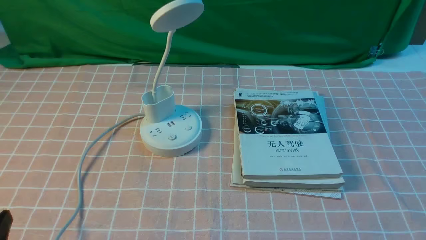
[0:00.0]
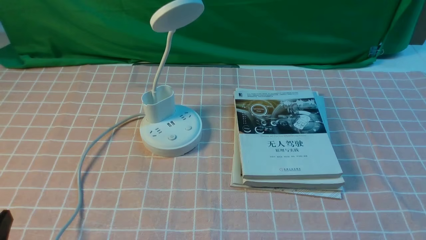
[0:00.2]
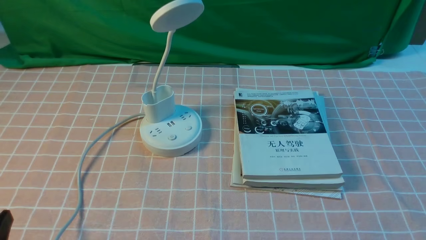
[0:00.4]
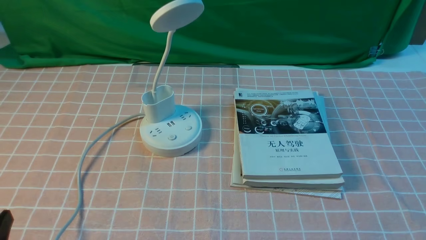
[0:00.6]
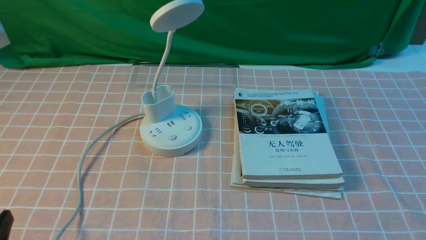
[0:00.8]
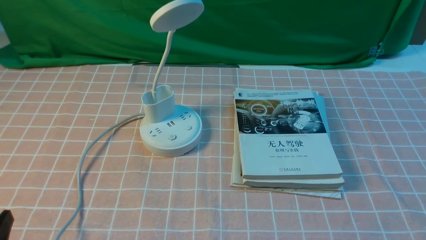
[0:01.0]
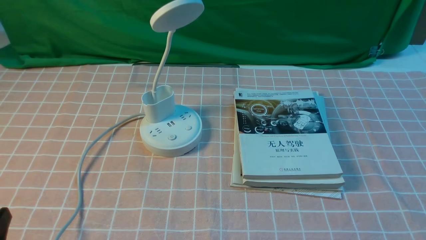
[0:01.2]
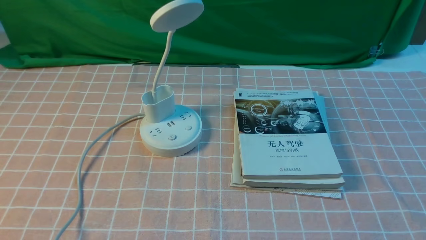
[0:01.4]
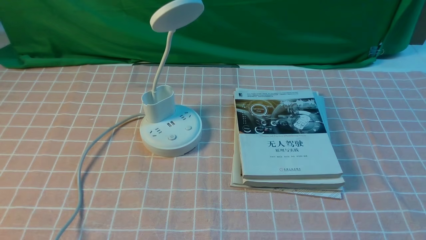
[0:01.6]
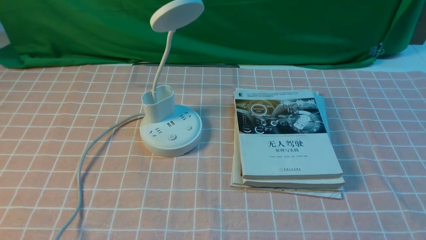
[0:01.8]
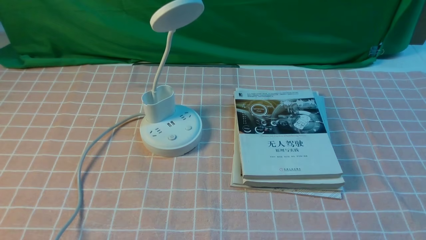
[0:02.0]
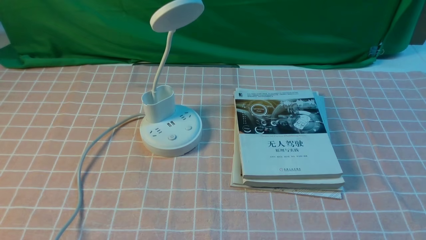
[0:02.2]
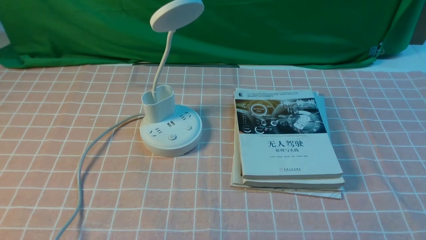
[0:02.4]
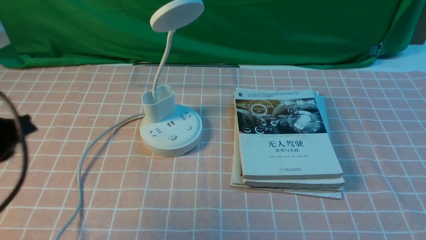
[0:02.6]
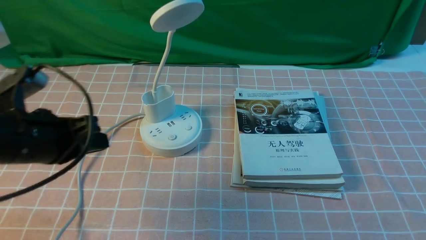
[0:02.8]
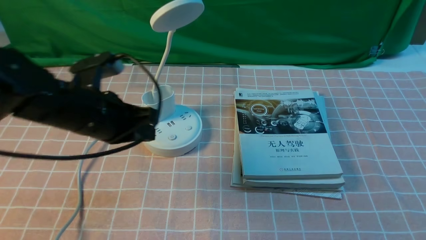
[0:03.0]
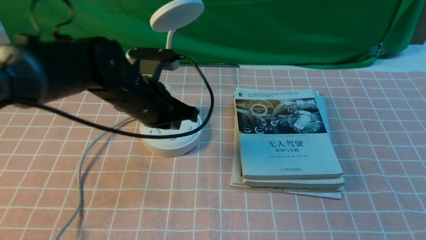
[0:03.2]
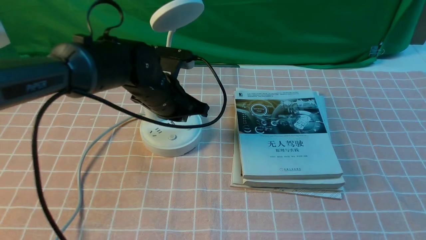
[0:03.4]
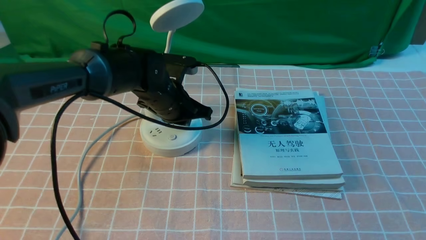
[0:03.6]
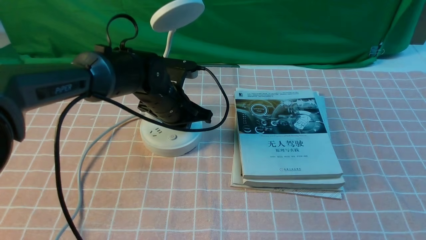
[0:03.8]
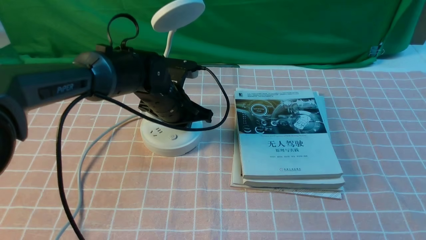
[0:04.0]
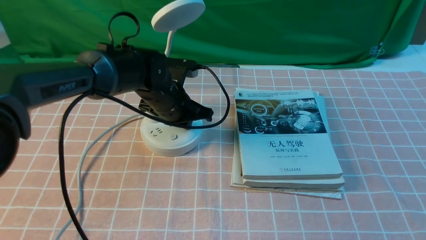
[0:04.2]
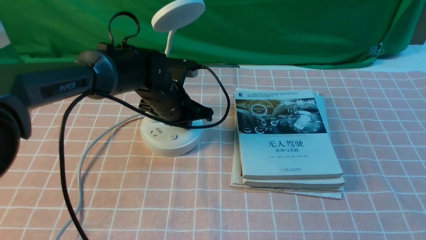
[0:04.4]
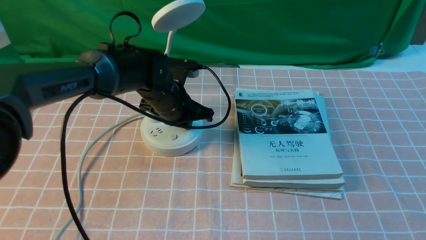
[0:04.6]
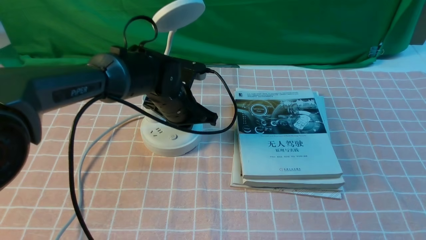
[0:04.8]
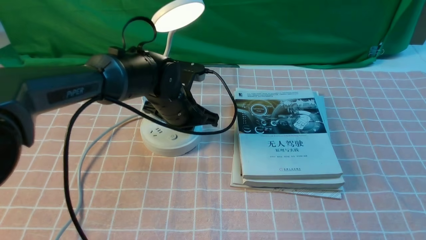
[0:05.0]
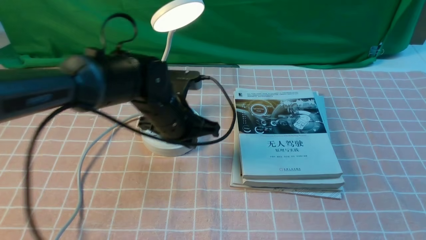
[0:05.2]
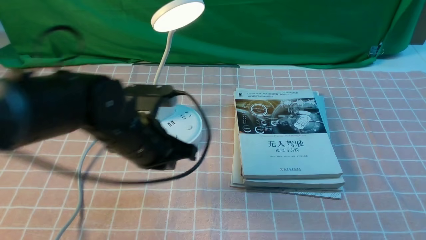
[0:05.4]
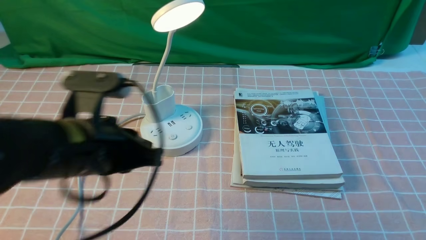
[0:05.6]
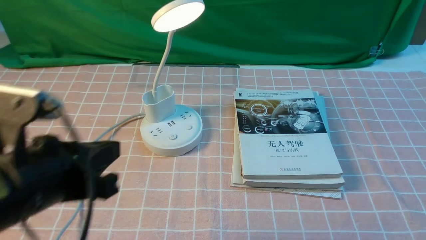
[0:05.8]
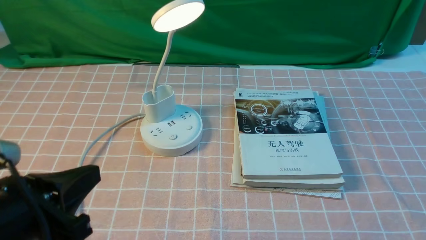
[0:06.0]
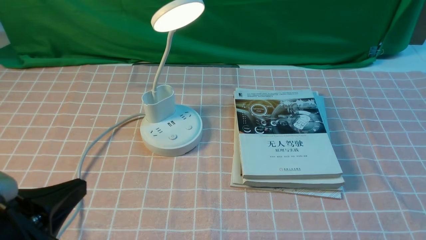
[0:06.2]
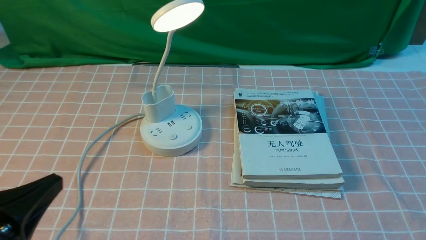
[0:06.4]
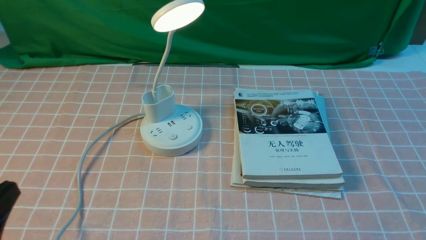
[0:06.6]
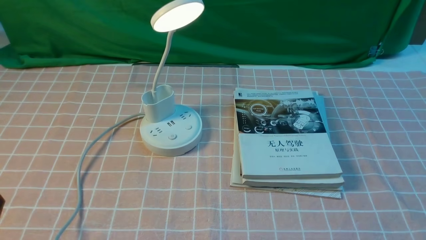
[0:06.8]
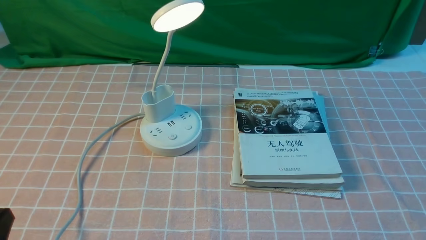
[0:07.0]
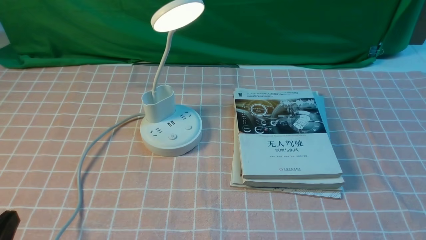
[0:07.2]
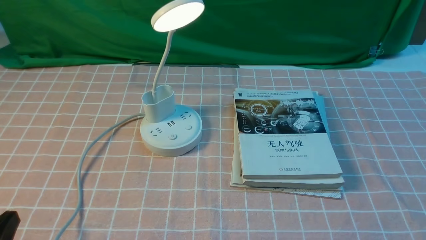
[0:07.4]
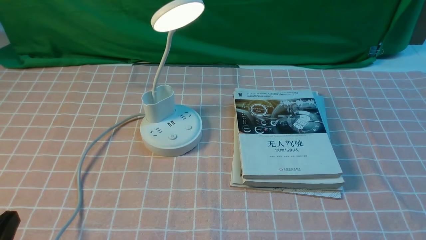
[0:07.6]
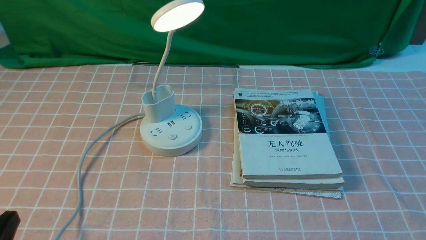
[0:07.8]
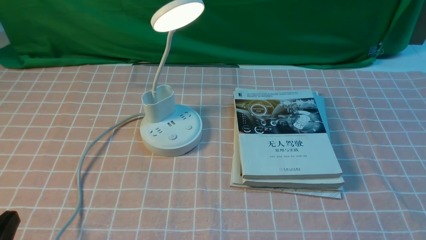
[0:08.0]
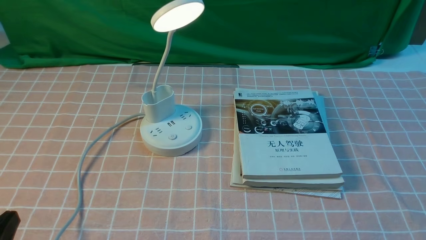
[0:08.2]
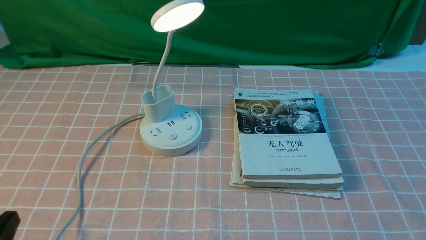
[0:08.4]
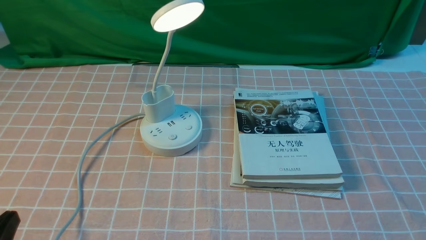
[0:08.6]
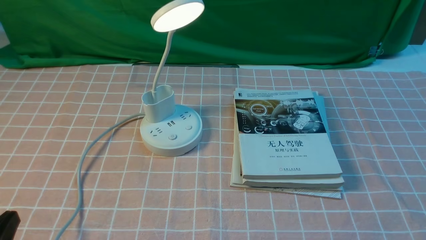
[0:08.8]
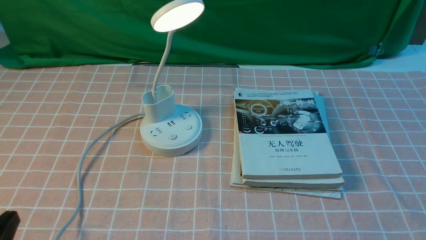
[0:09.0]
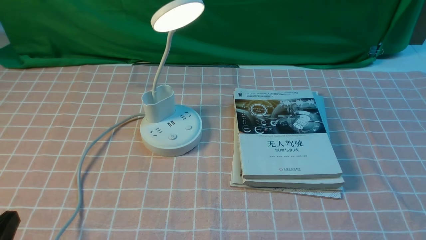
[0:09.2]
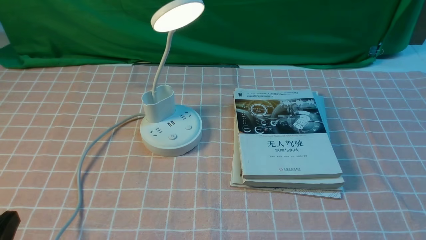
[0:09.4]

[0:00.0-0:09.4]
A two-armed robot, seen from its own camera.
Step, 0:00.0 to 0:05.2: use the left arm to press the button switch on the lamp holder.
0:01.6 to 0:03.2: The left gripper heads forward and to the right, covering approximately 35 cm, and closes its fingers.
0:03.2 to 0:04.8: The left gripper travels downward by roughly 5 cm.
0:04.8 to 0:06.2: The left gripper shifts about 35 cm backward and to the left.
0:06.2 to 0:07.8: The left gripper heads downward, covering some 5 cm.
0:07.8 to 0:09.4: Both grippers stay put.

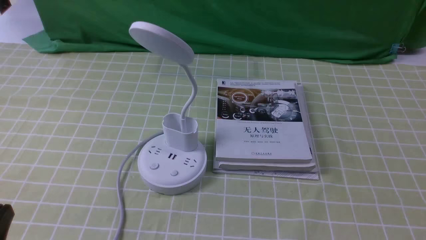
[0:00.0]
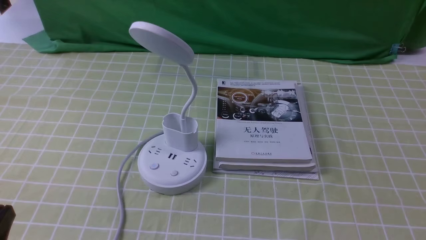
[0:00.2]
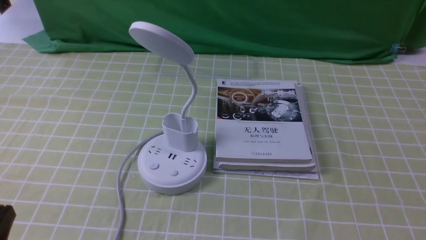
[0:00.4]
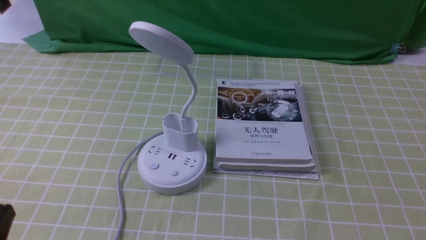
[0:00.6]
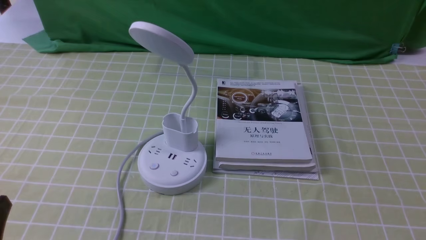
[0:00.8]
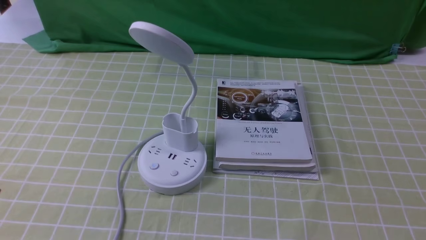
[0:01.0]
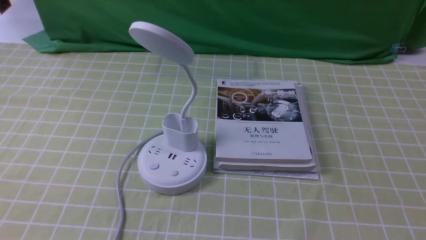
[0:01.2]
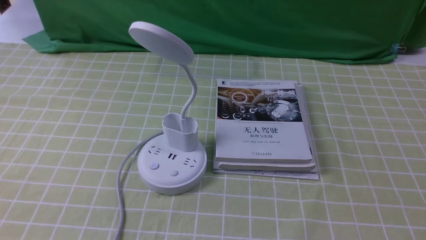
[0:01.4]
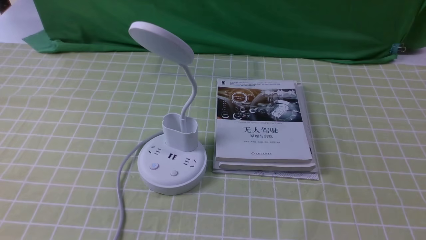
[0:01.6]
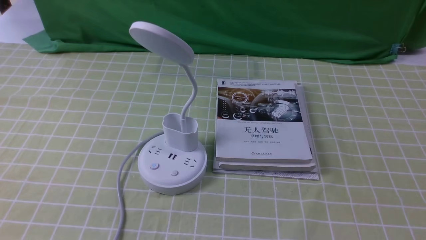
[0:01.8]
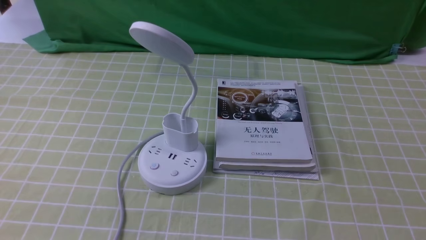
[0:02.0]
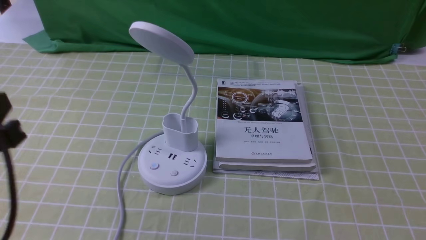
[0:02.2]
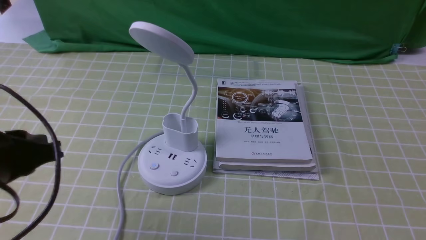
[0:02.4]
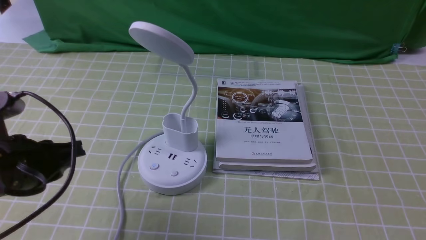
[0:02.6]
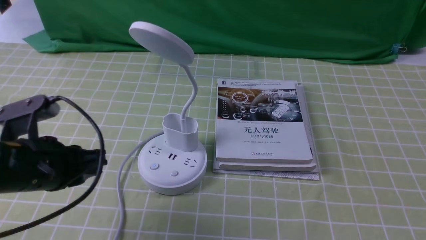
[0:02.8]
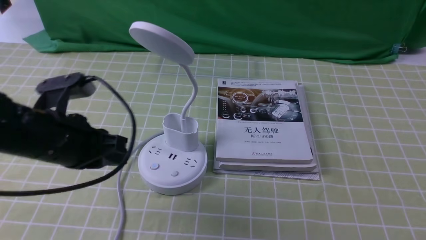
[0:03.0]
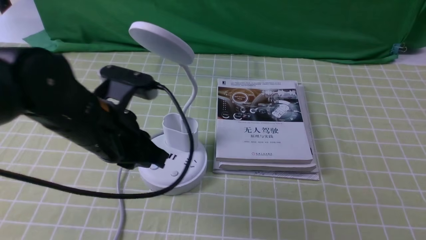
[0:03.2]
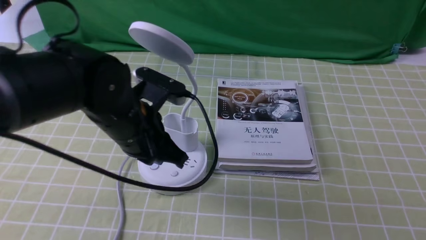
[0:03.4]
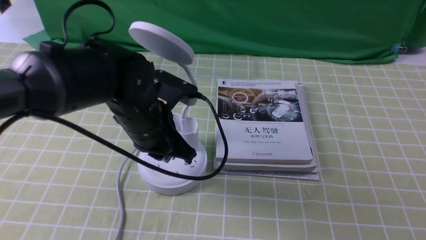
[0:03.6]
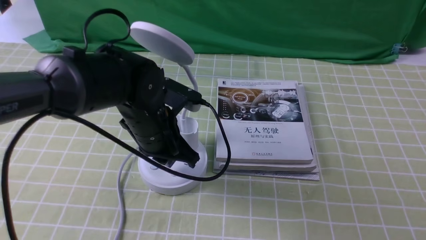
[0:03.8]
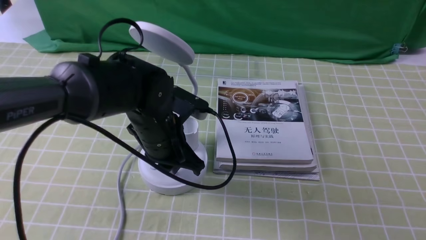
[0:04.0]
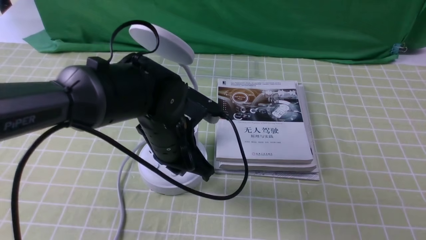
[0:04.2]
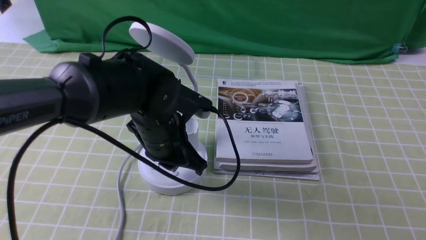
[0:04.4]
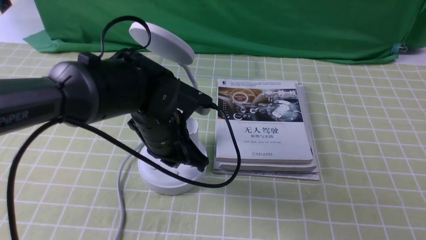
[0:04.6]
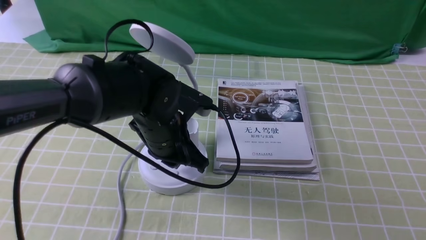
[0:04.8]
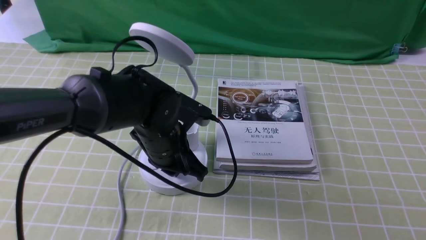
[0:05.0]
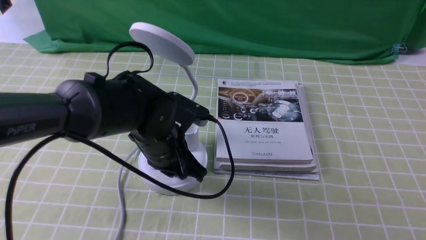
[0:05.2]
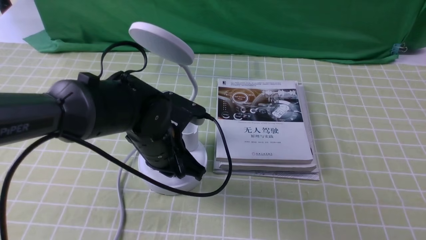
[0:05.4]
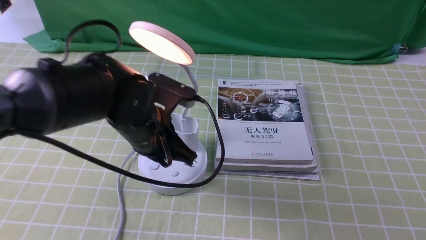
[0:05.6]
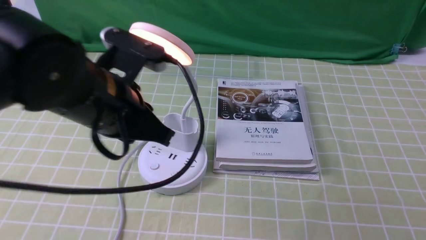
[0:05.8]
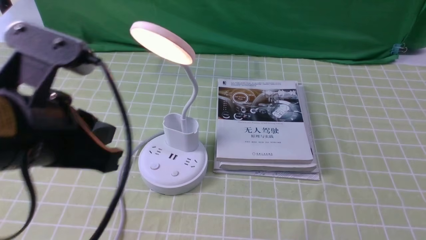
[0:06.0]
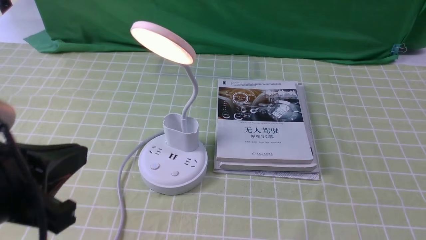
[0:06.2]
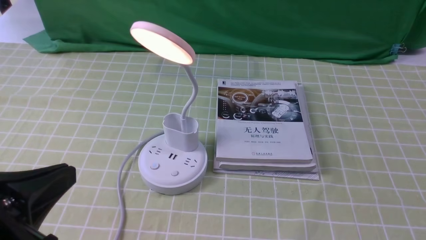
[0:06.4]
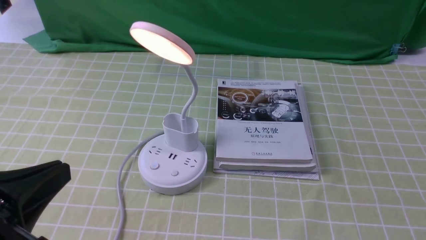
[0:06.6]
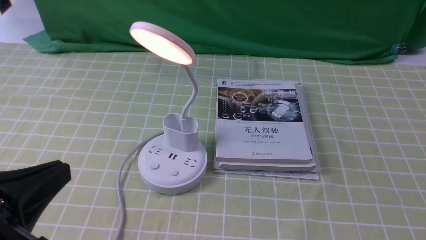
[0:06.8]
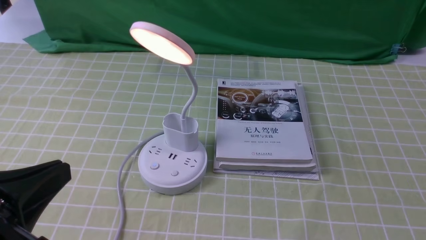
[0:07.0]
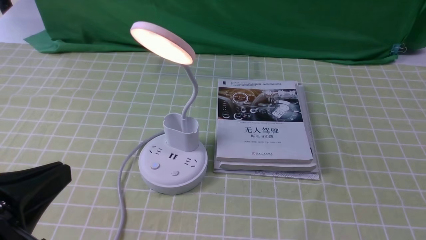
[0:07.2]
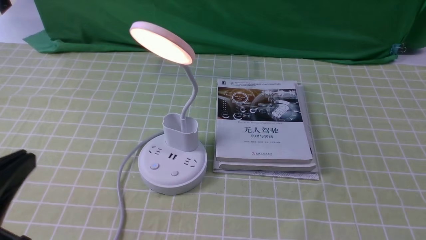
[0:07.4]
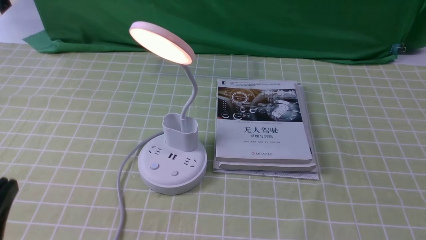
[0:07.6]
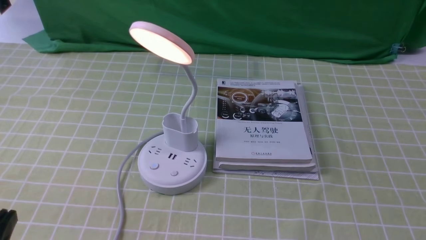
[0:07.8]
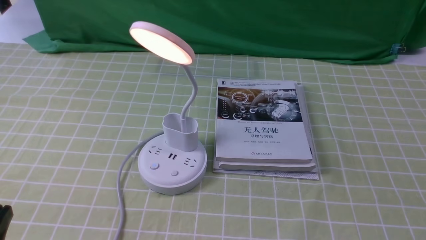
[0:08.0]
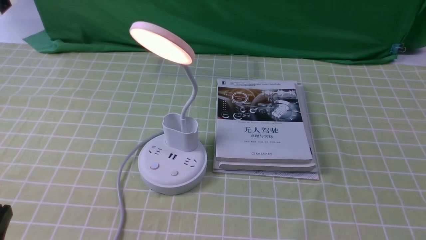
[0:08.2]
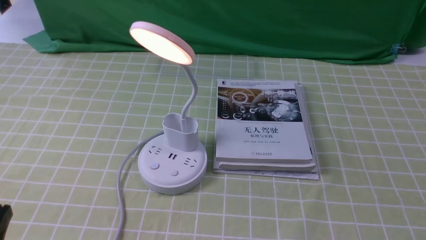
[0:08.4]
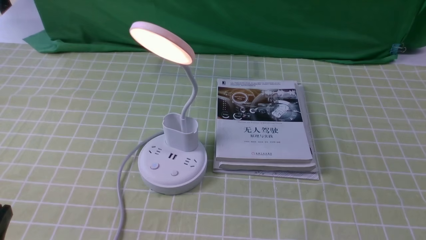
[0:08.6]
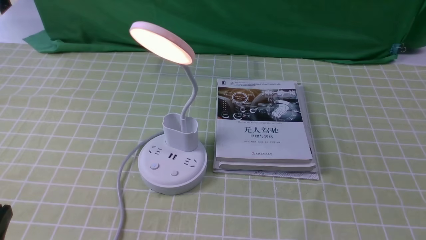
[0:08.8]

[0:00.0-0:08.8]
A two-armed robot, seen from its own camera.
Step, 0:00.0 to 0:05.6: use the left arm to press the button switch on the lamp holder.
0:01.4 to 0:03.0: The left gripper shifts approximately 20 cm forward.
0:03.0 to 0:04.4: The left gripper travels to the right and forward by roughly 15 cm, and opens, then closes once more.
0:04.4 to 0:05.8: The left gripper goes some 5 cm upward.
0:05.8 to 0:07.4: The left gripper is displaced backward and to the left by some 20 cm.
0:07.4 to 0:08.8: The left gripper is displaced downward by about 10 cm.
